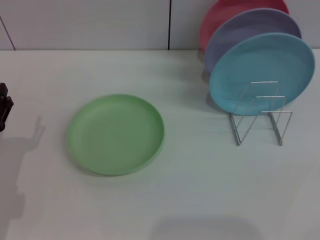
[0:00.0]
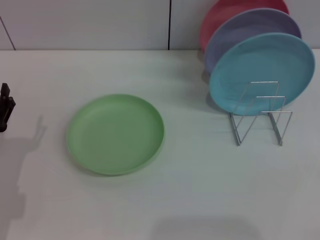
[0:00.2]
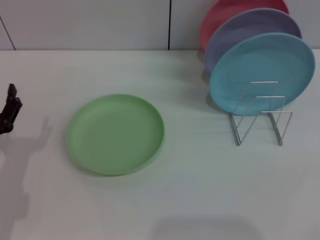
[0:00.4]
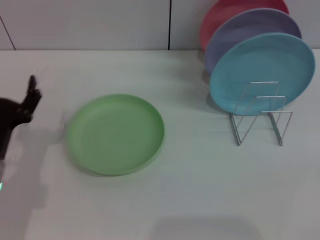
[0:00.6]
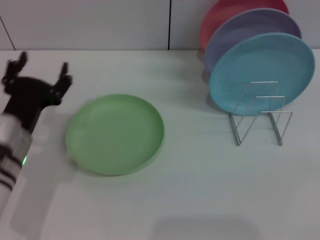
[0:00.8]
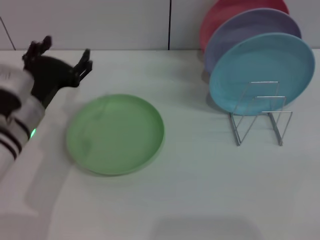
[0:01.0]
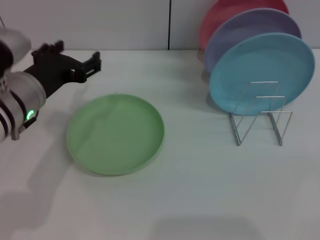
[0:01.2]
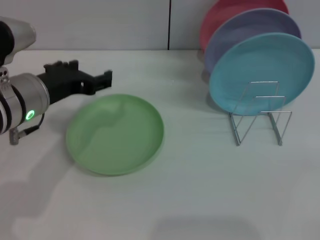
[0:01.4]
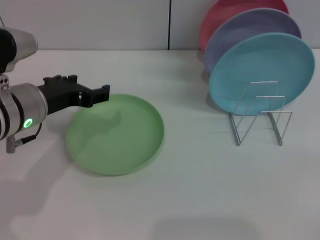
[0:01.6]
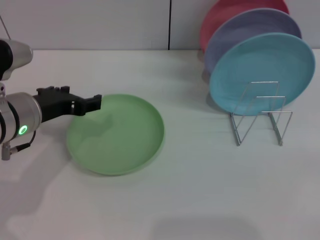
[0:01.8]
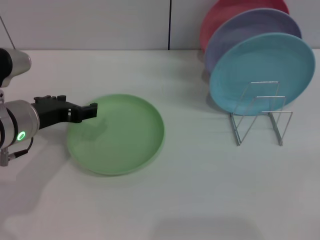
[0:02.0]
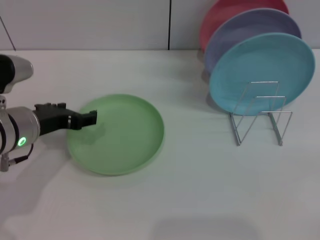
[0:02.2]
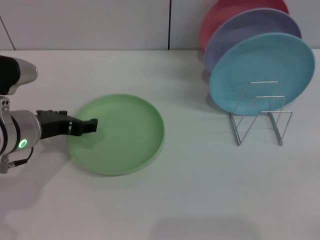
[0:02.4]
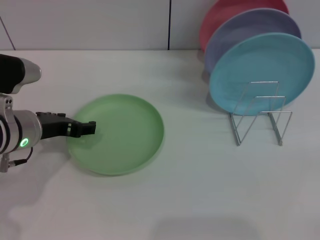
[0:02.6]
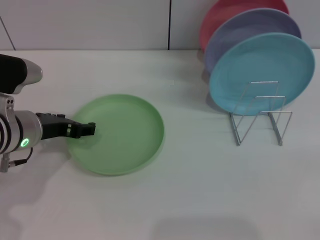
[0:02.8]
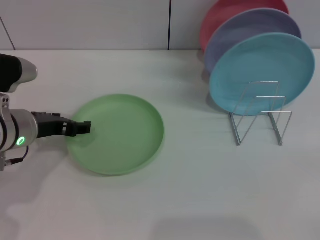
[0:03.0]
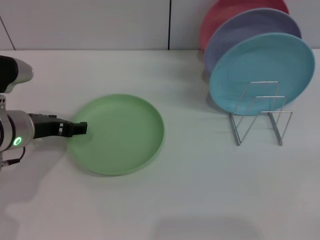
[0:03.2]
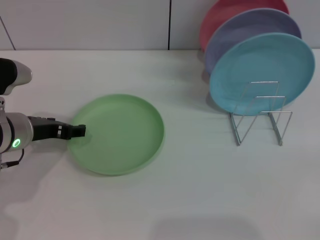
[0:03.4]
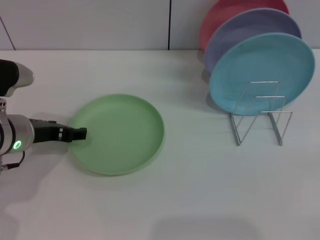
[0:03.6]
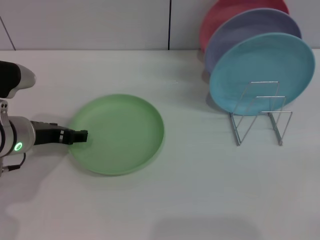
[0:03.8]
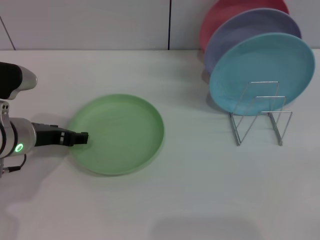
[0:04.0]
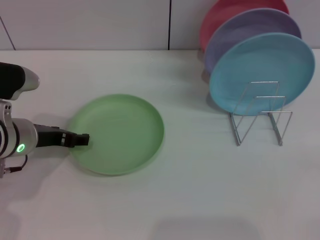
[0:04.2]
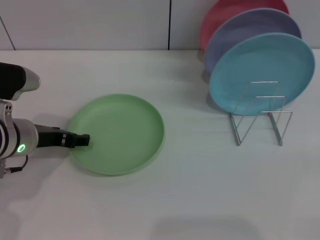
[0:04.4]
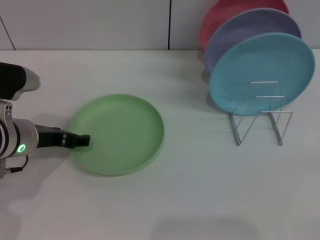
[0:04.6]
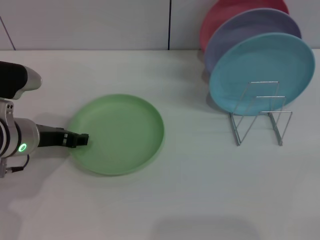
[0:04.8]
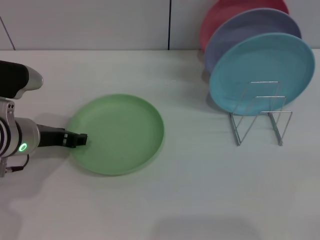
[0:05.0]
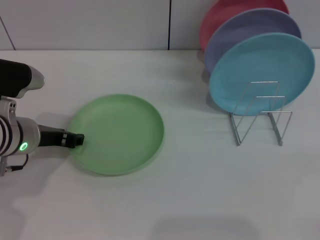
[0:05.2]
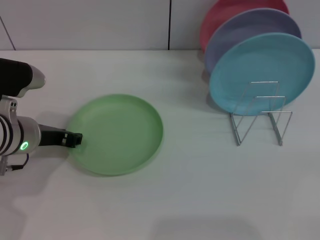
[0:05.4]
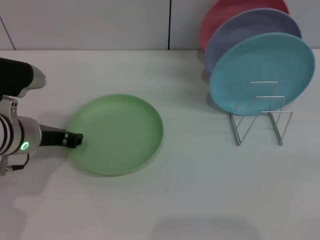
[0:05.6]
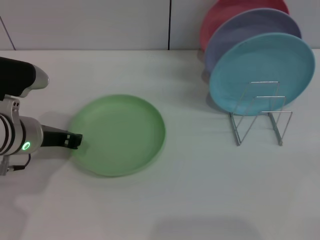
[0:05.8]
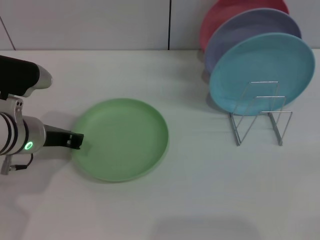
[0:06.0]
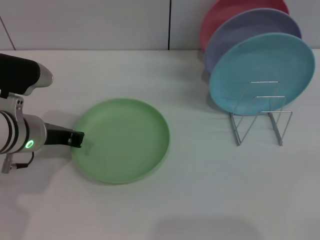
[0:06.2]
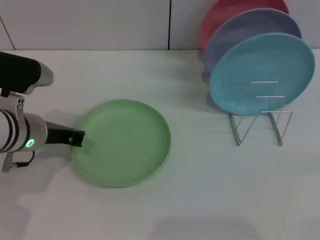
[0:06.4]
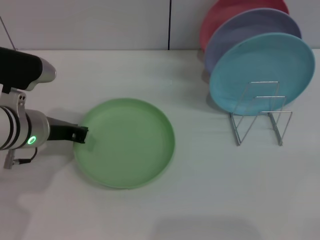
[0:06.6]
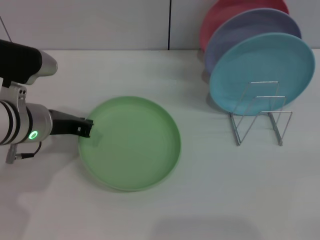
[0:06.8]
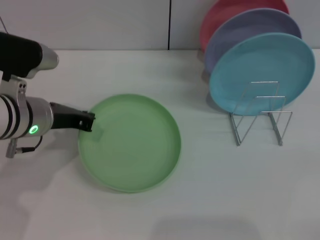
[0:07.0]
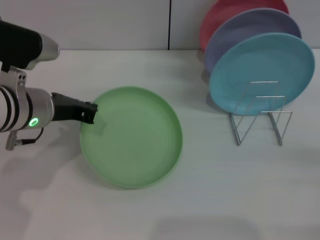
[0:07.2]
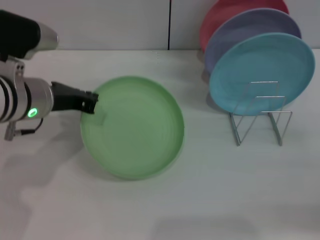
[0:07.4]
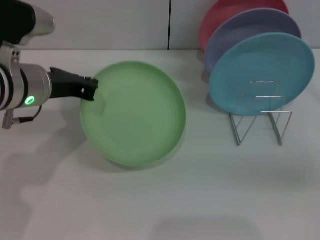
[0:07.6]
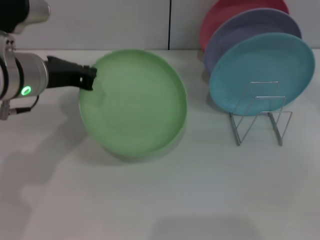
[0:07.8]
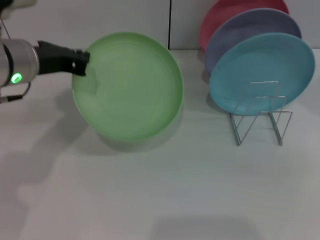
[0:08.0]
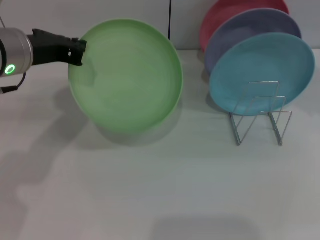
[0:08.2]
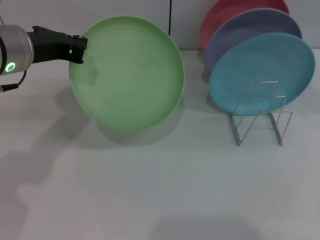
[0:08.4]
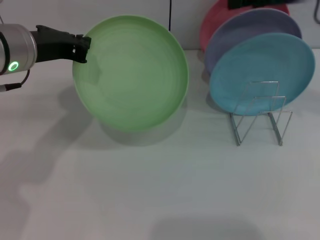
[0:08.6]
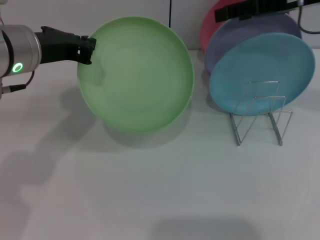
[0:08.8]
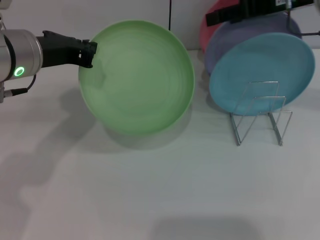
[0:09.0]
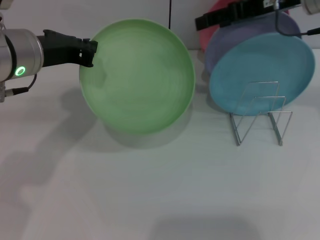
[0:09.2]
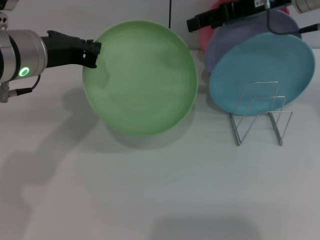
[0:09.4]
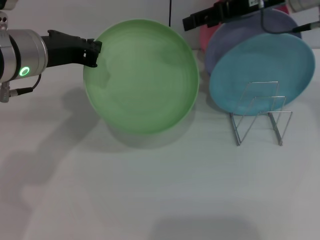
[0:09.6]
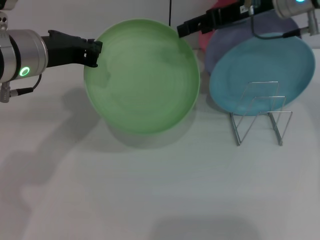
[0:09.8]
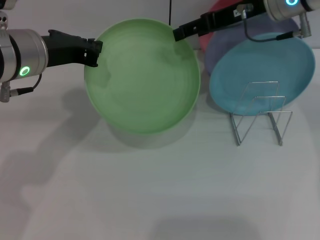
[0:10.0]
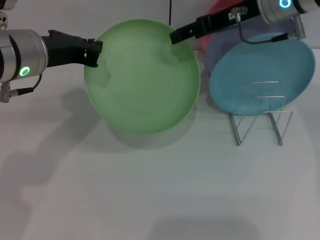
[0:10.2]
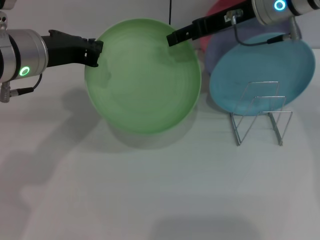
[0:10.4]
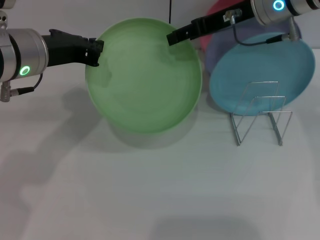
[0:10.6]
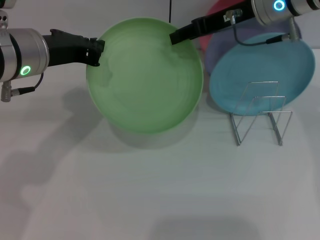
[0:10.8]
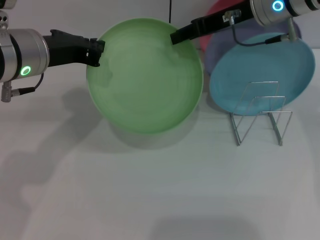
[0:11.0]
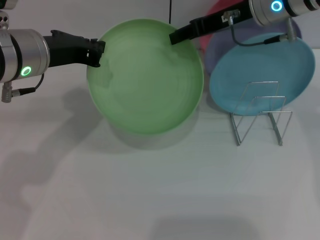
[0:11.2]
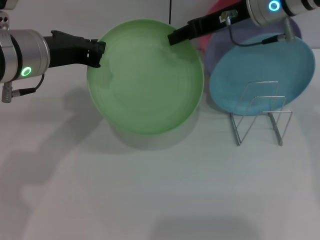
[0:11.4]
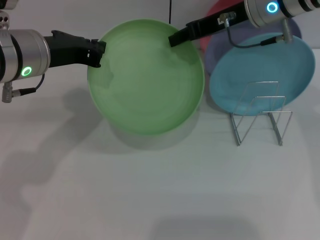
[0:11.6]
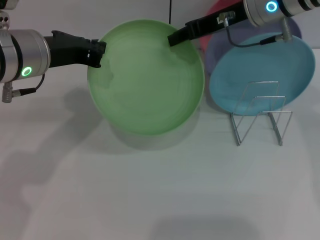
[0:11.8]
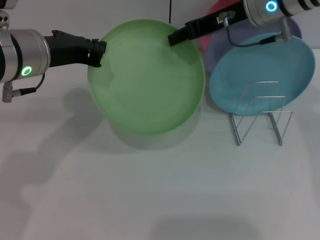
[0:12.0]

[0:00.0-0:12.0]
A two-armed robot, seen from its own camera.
Task of the whole recording: Grip the plate with one hand, pass it to the other, then set it on the shelf.
Step, 0.0 to 7.6 s: Pick up the plate with the left gripper.
0.0 to 1.6 s: The left gripper heads upward, to the right and forward, covering some 15 cm.
1.6 to 3.0 s: The left gripper changes place by approximately 5 cm.
3.0 to 4.4 s: There are only small adjustments of the grippers.
4.4 to 6.0 s: The left gripper closes up.
6.0 to 7.6 s: The right gripper is displaced upward and forward by some 20 cm. Meanwhile the left gripper moves upward, approximately 5 cm.
7.6 to 9.0 s: The right gripper travels to the left, forward and upward by roughly 20 cm.
9.0 to 10.4 s: The right gripper shifts approximately 5 cm to the left.
10.4 to 12.0 s: The right gripper closes up.

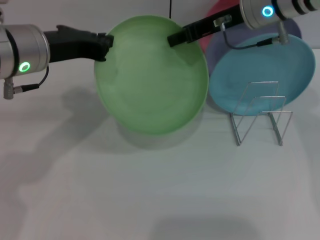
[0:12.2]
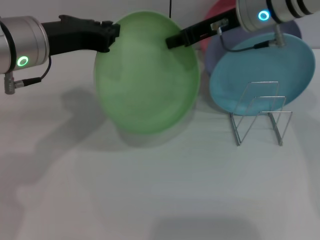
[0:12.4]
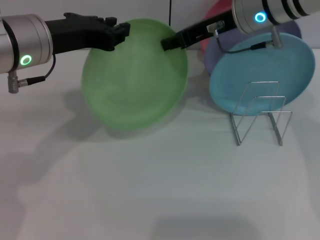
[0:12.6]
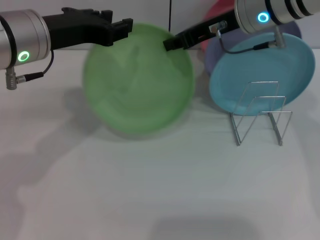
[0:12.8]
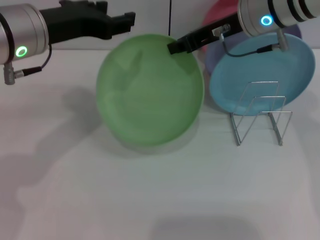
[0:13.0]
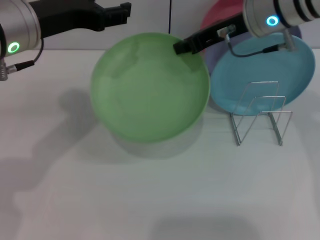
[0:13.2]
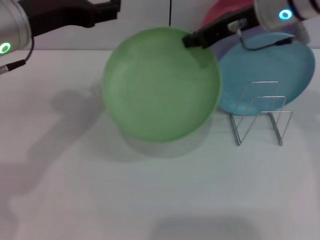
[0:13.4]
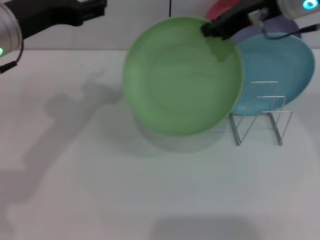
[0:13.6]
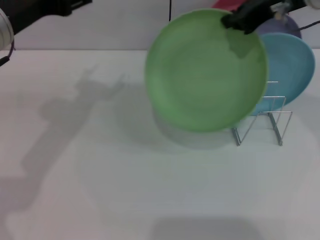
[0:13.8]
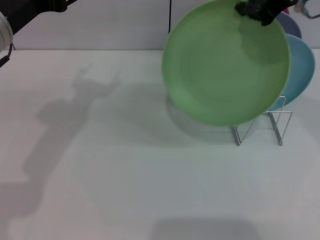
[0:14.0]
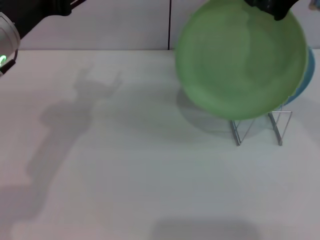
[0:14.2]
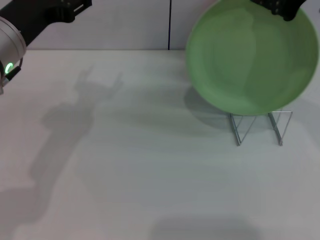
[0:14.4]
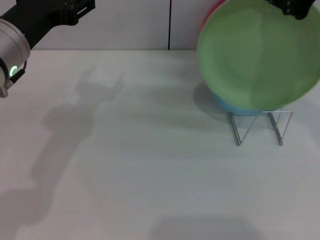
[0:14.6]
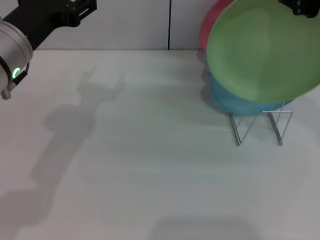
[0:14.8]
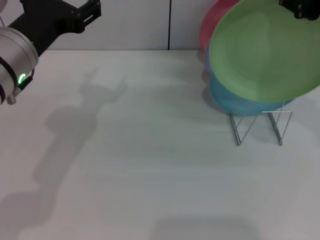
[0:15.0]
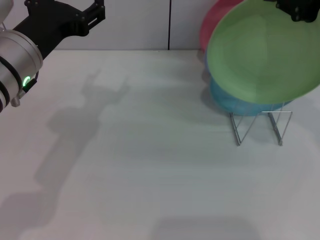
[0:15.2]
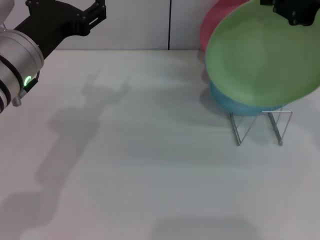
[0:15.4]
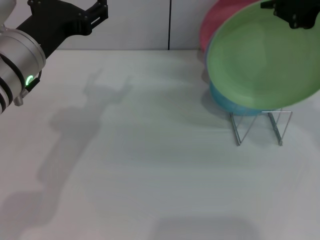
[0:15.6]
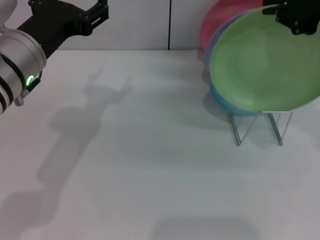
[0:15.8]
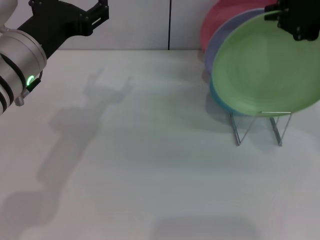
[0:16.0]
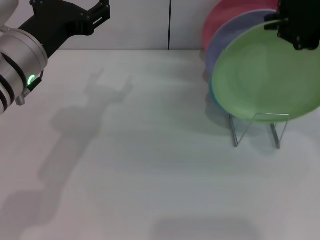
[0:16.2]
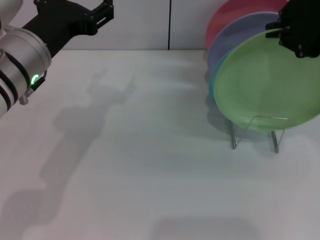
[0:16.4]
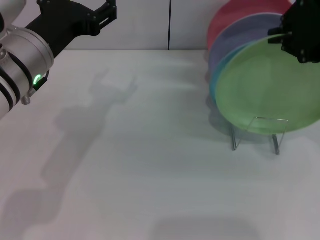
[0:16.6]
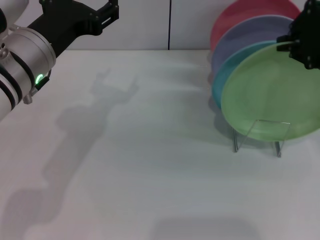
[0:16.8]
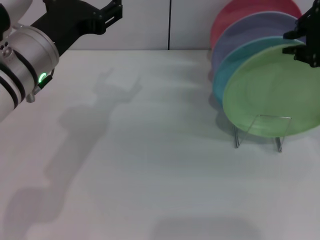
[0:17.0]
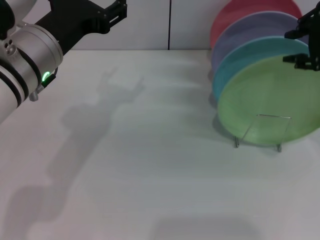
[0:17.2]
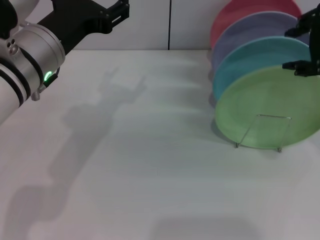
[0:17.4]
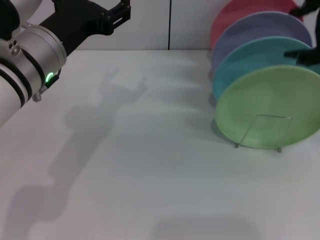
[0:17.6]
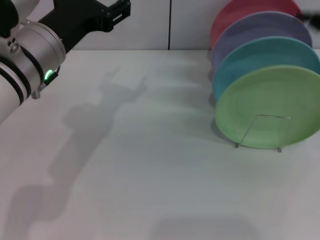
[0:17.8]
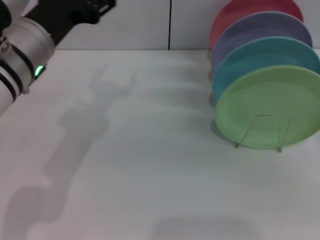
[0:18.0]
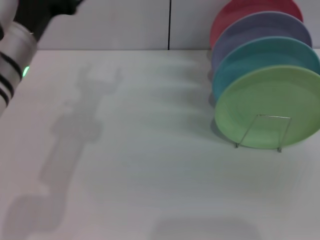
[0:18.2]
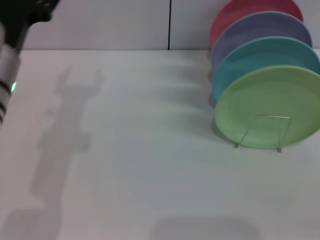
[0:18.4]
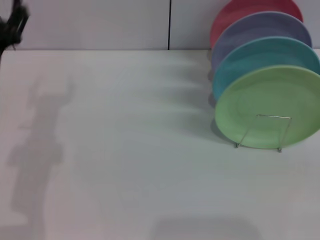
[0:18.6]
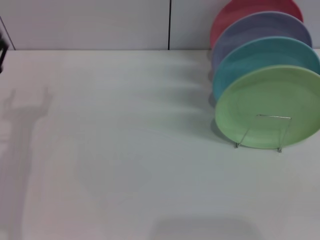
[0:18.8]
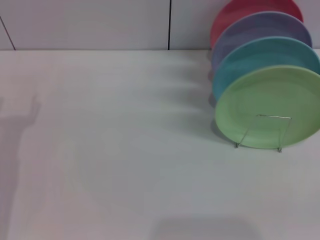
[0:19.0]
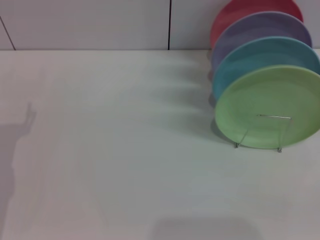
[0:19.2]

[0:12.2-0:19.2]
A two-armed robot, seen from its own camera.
Task of the whole recording: Grip the plate with one hand, pass it to the other, then set it on the shelf.
Step, 13.6 to 17.6 s: Place the plate on the shelf with the right gripper.
12.2 to 13.6 s: The left gripper opens; the right gripper ends up some 5 cm from where it was.
13.6 to 15.0 s: The right gripper is displaced backward and upward by about 10 cm.
15.0 to 16.4 s: The grippers make only small movements.
16.4 to 17.8 s: The right gripper shifts by some 5 cm, and opens.
17.8 to 19.2 s: The right gripper travels downward, backward and to the right by some 35 cm, while the left gripper goes about 20 cm downward and to the left.

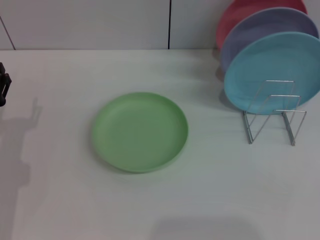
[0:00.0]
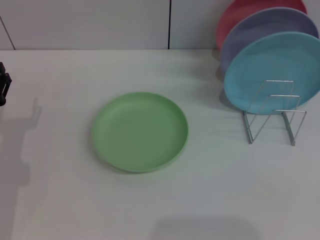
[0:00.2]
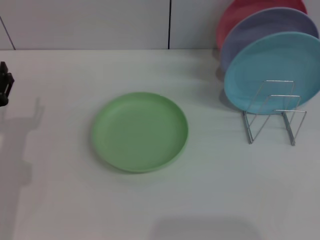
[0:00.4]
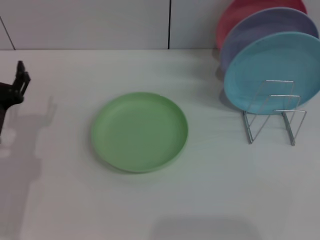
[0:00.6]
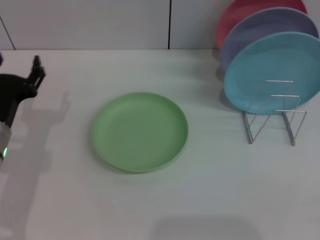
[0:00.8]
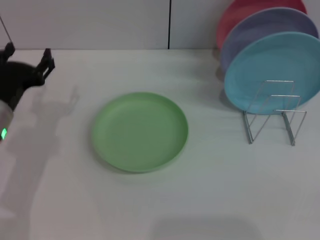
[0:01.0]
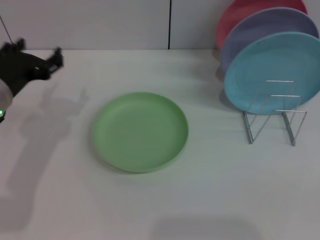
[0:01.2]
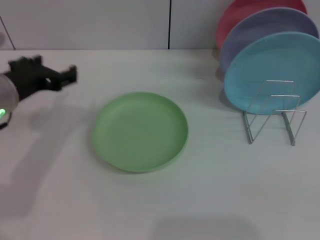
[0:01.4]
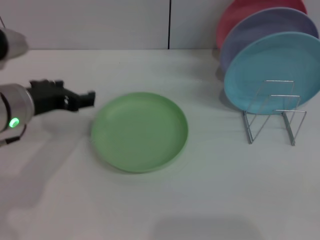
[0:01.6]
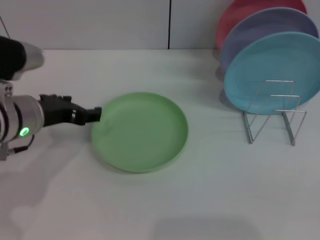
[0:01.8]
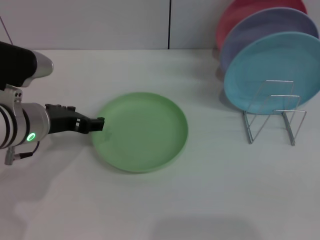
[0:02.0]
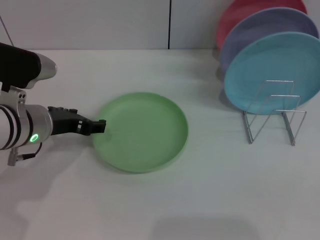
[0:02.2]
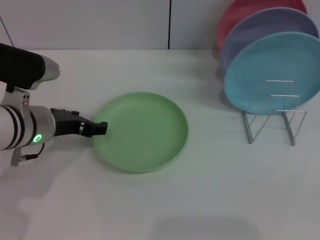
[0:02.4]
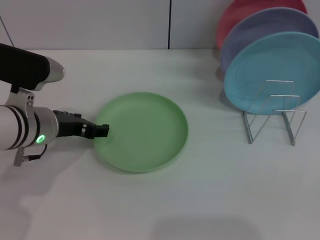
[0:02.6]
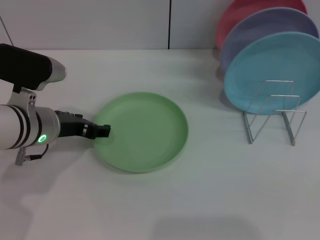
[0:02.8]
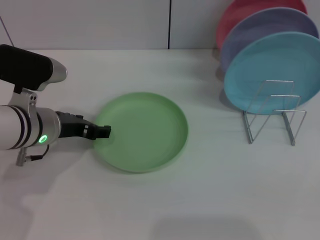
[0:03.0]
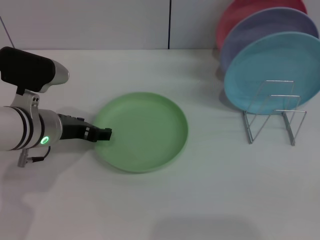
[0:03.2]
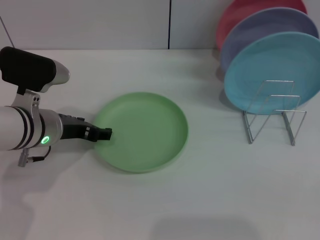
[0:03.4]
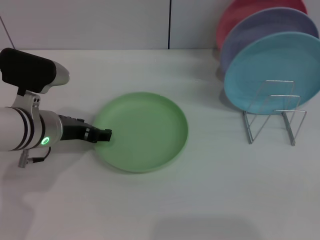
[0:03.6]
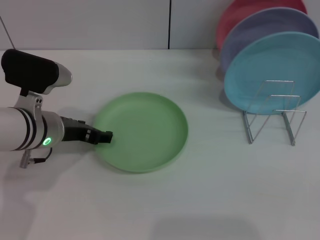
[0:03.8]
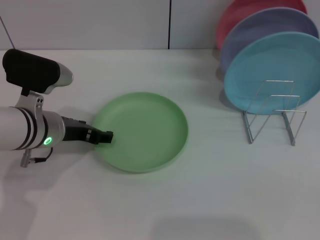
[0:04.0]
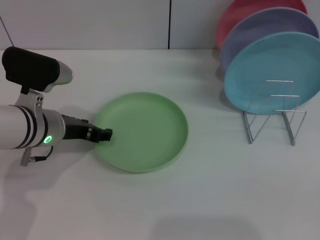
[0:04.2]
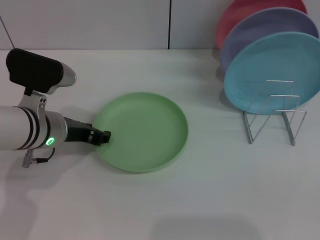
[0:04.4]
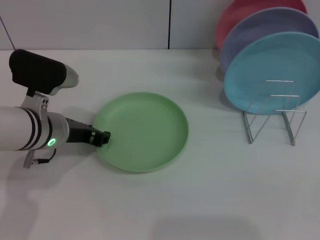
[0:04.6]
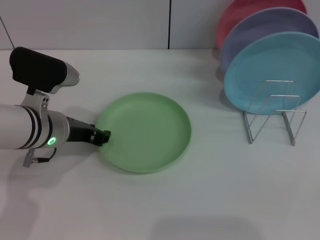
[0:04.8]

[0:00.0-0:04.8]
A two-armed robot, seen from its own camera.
Task of the whole recording: Grip the plate with one hand, pass it to the other, then set it on the shelf.
0.0 to 1.6 s: The left gripper is displaced upward and to the right by approximately 15 cm.
1.6 to 3.2 s: The left gripper goes roughly 5 cm downward.
3.2 to 4.8 s: Neither gripper changes place.
